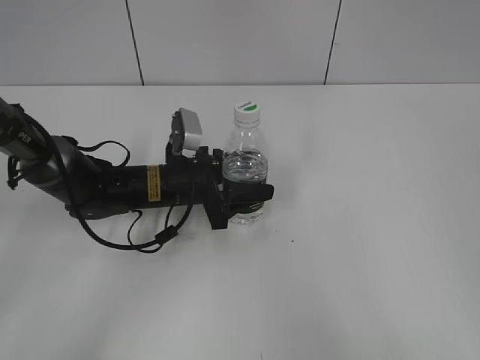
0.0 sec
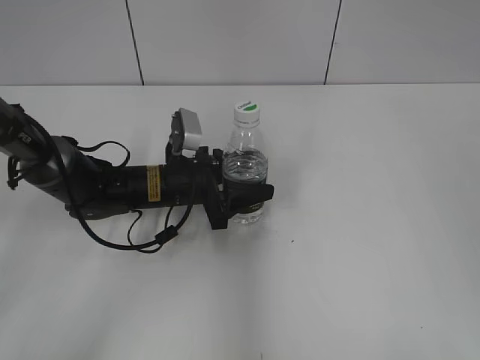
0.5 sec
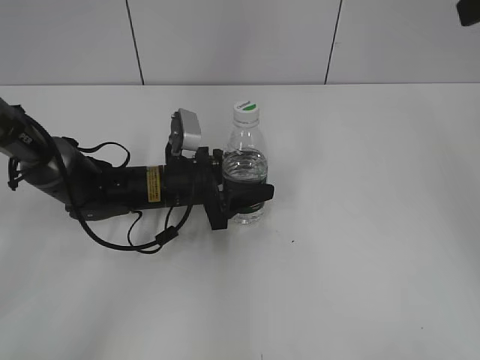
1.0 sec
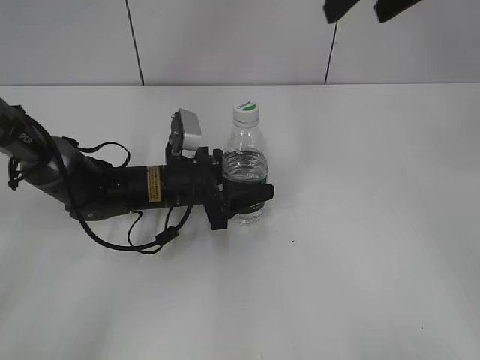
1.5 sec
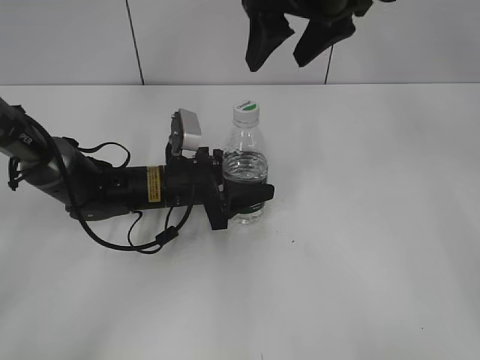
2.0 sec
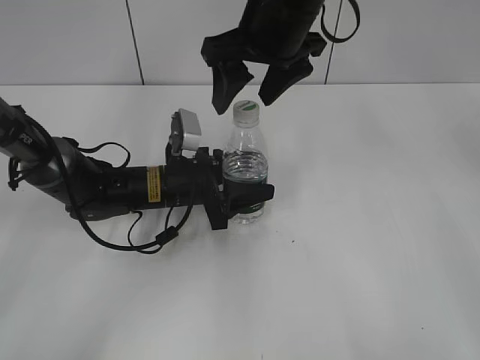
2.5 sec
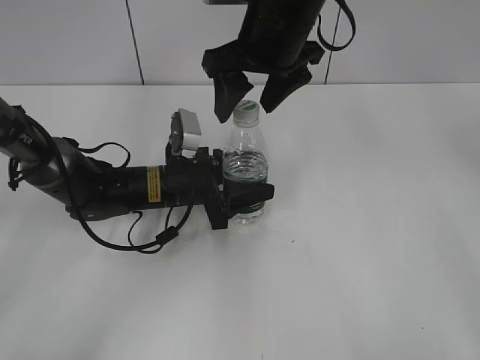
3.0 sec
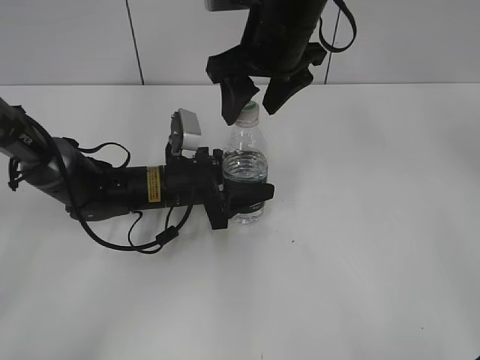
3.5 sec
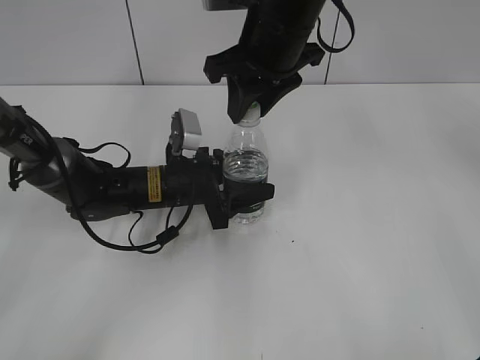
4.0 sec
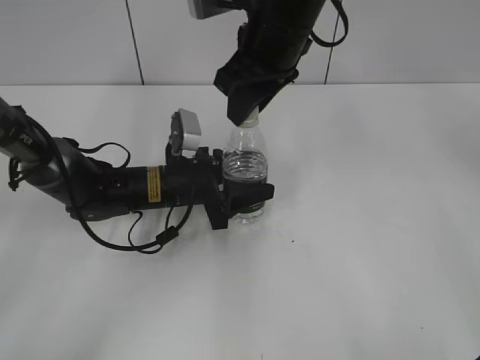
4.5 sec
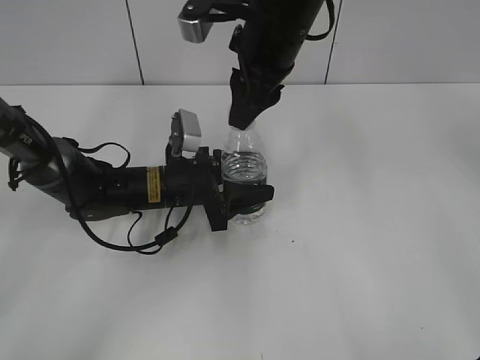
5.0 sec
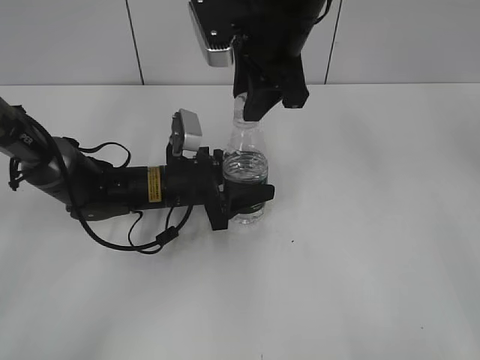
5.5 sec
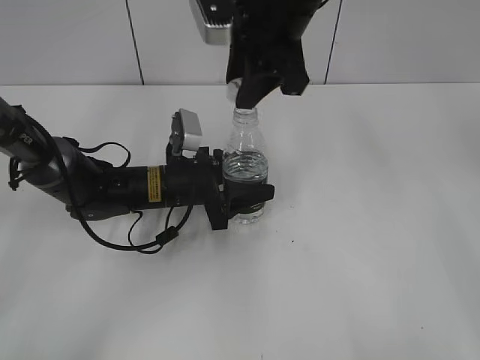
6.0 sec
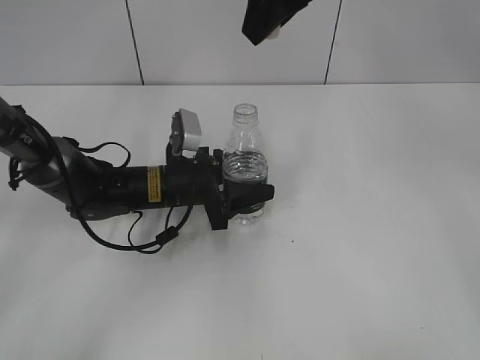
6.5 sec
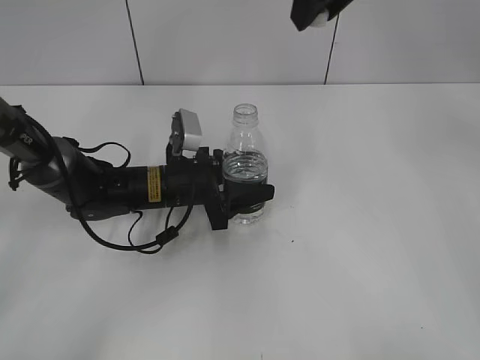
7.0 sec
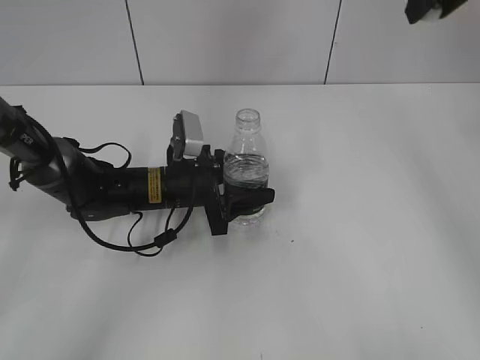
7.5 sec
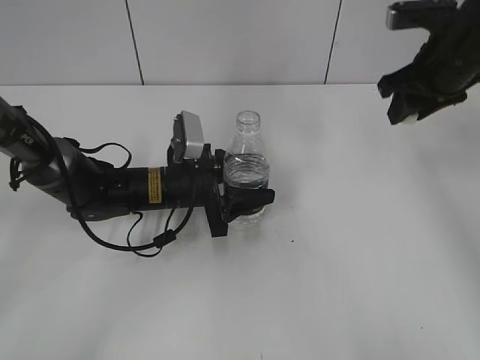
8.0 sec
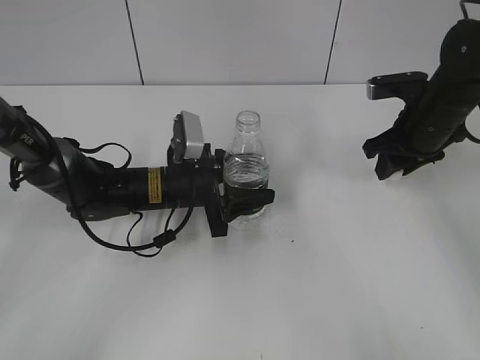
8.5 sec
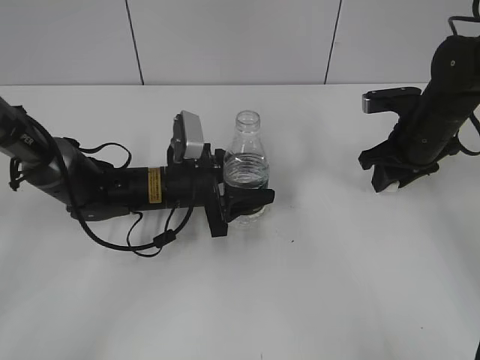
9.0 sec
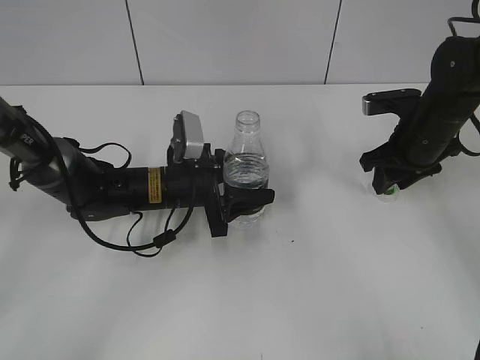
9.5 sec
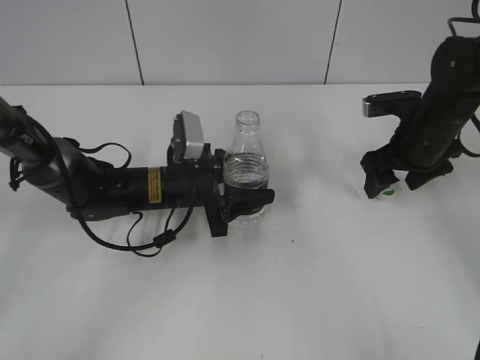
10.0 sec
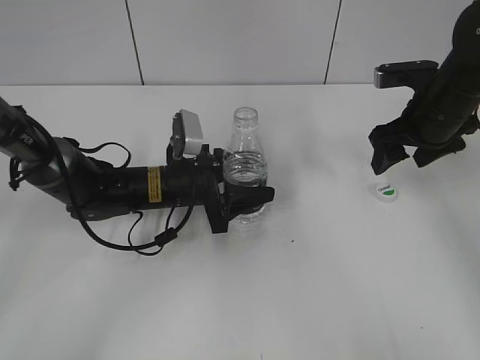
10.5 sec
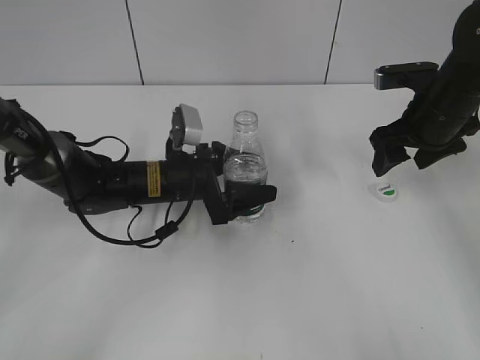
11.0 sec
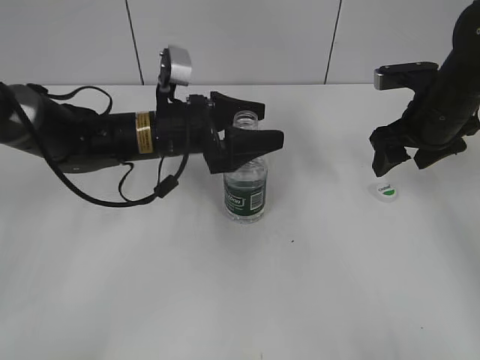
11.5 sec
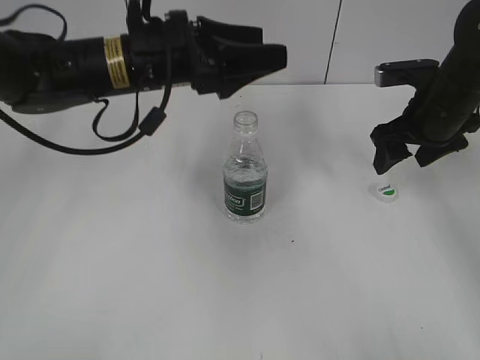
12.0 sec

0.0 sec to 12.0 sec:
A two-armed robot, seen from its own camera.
Step, 0.0 sec to 6.0 sec: Unscrew the bottle cap with the right gripper while holding the bottle with the left gripper.
Step, 6.5 sec to 10.0 sec: Place the bottle cap on the table with the right gripper.
Step, 10.5 sec to 11.0 sec: Place the bottle on the table with the left gripper.
0.0 sec to 2.0 sec: The right gripper heads forward and to the left, covering approximately 40 cm.
2.0 sec to 4.0 sec: The right gripper is displaced downward by approximately 5 cm, and closes up.
6.0 sec to 8.0 sec: The right gripper shifts roughly 20 cm to the right.
8.0 sec to 10.0 sec: The right gripper is displaced downward by about 10 cm, and opens.
10.0 sec to 12.0 sec: The left gripper is displaced upward by about 20 cm, and opens its fingers.

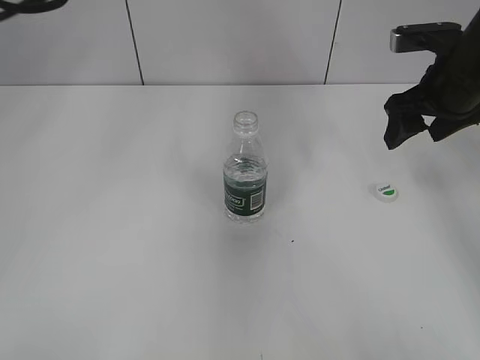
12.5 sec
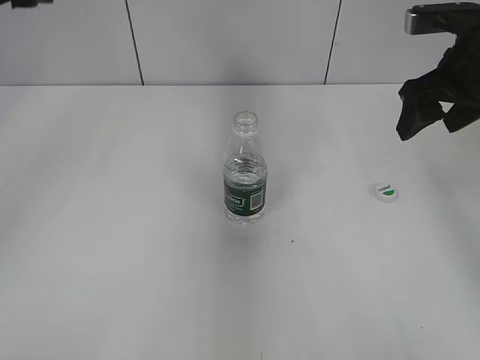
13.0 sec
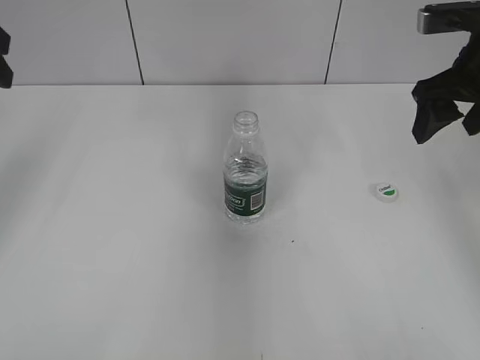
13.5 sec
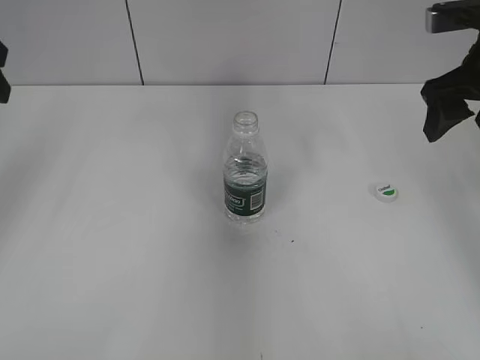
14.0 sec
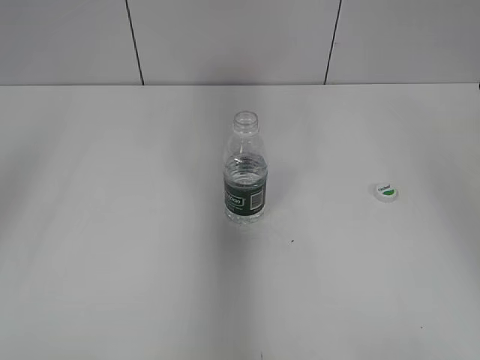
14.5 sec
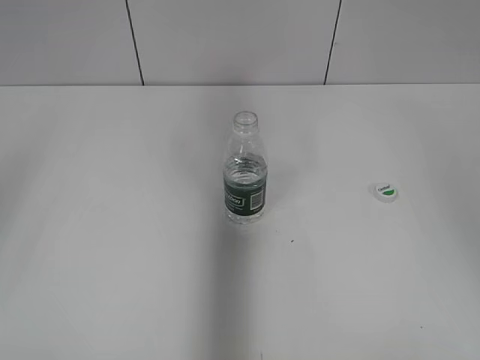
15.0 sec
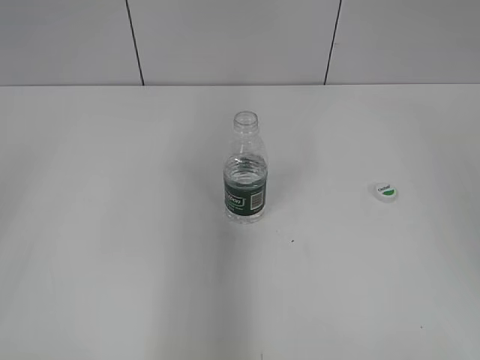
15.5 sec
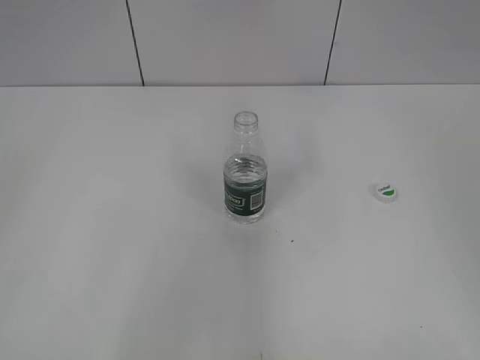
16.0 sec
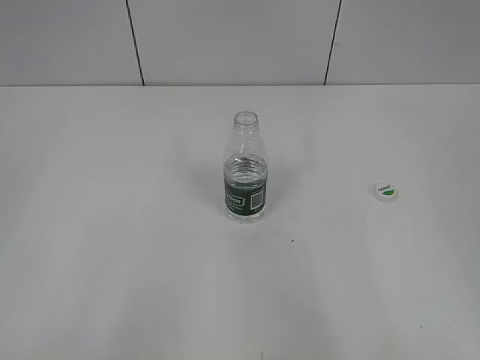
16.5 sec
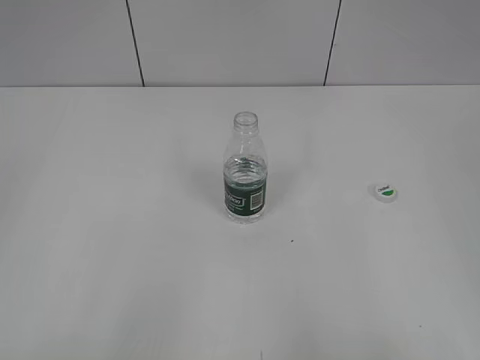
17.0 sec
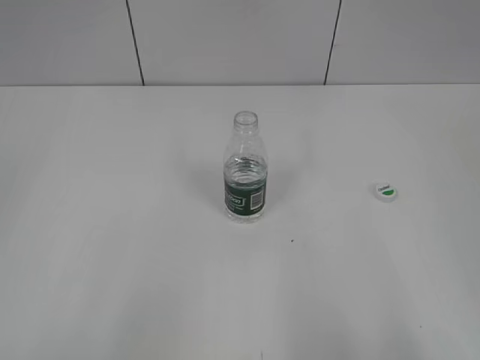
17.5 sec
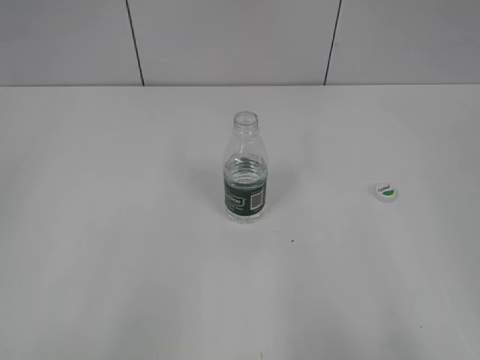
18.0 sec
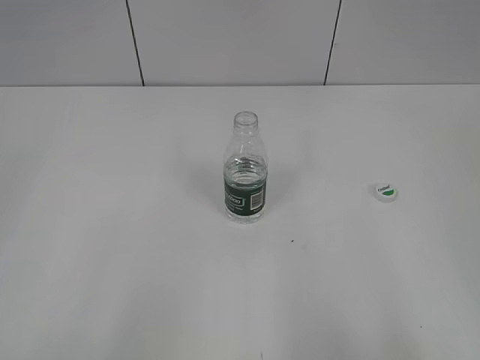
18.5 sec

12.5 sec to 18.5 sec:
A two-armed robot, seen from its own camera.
12.5 sec to 14.5 sec: The left gripper travels to the left and backward by approximately 15 cm. The right gripper travels upward and backward by approximately 15 cm.
14.5 sec to 16.5 sec: Both grippers move backward, approximately 25 cm.

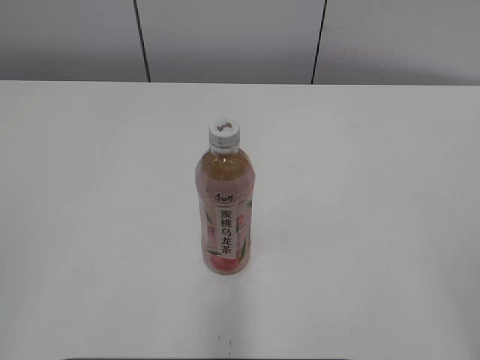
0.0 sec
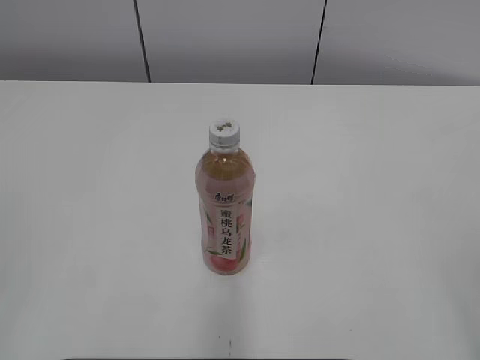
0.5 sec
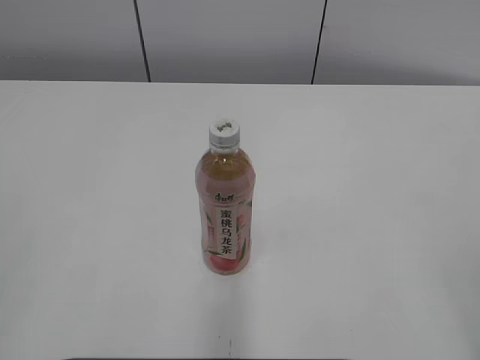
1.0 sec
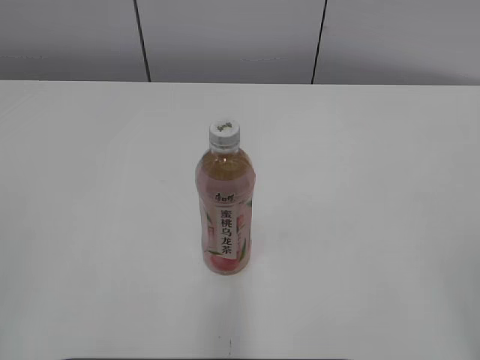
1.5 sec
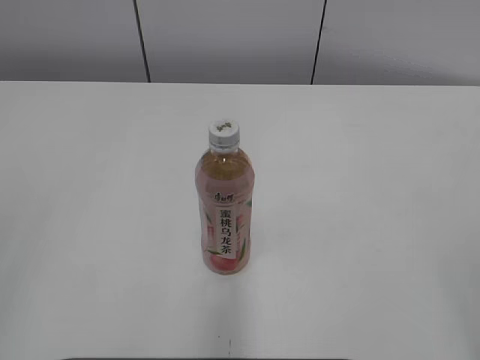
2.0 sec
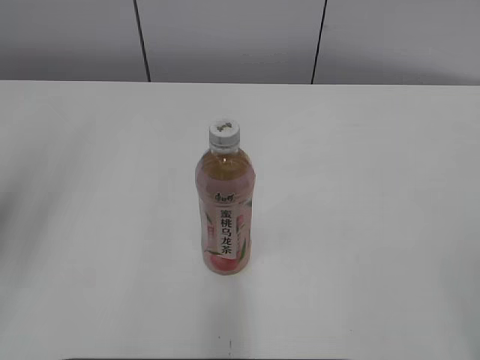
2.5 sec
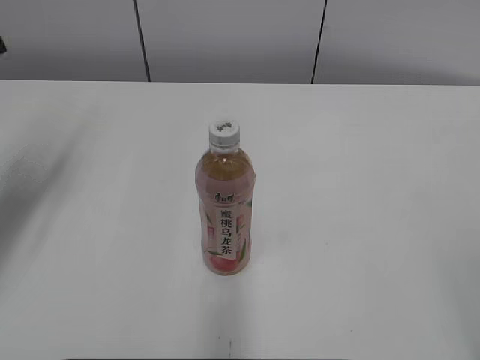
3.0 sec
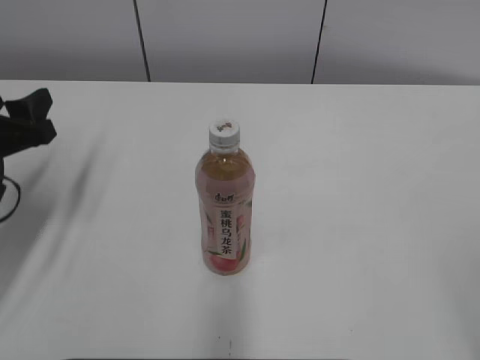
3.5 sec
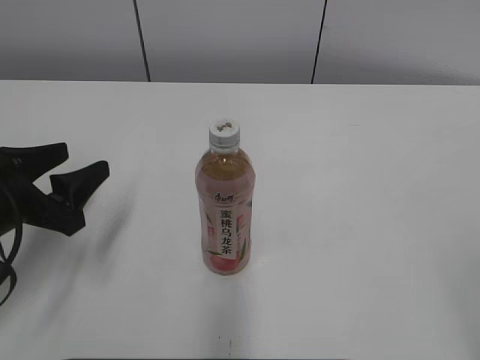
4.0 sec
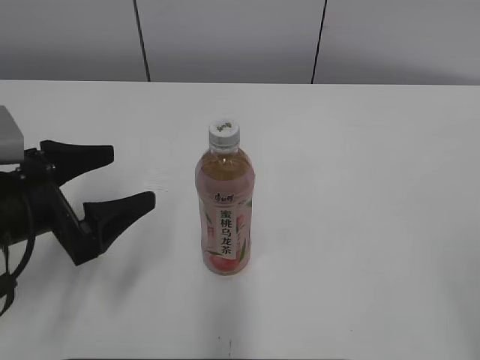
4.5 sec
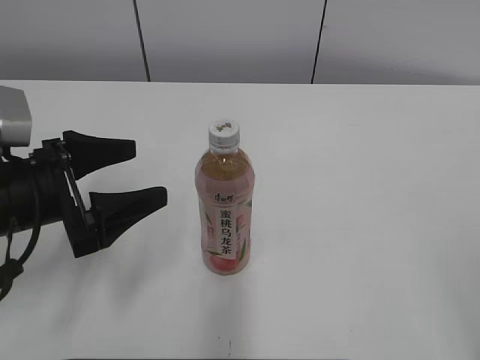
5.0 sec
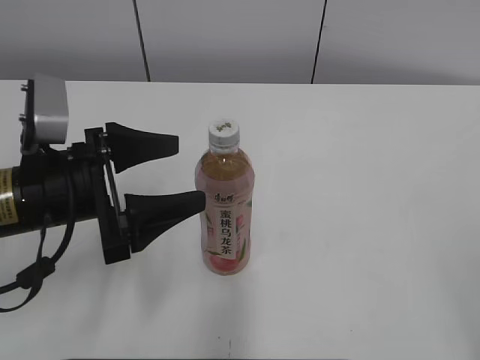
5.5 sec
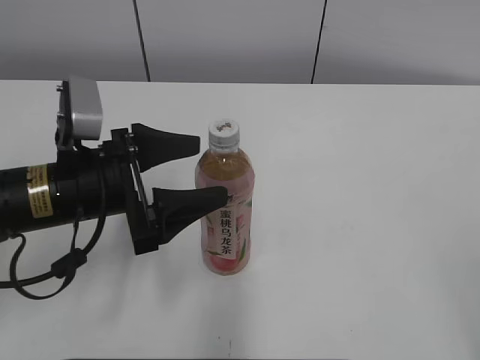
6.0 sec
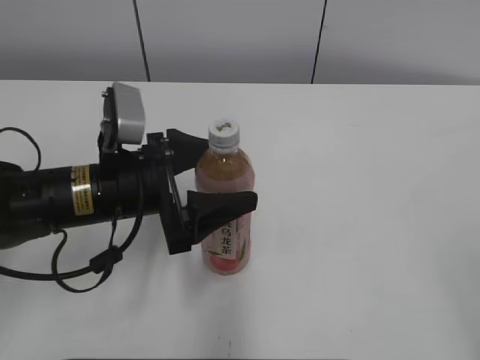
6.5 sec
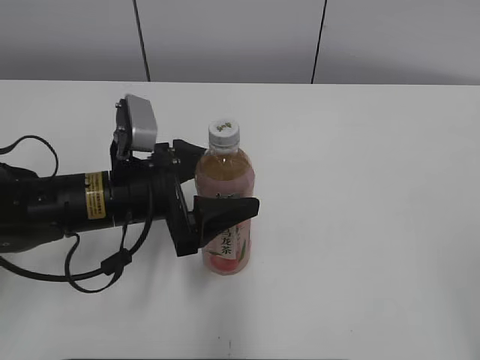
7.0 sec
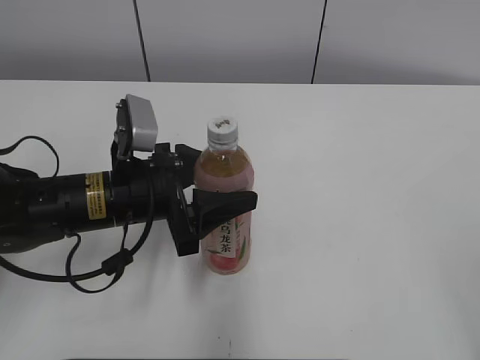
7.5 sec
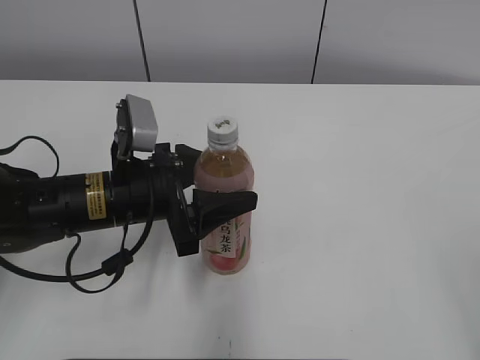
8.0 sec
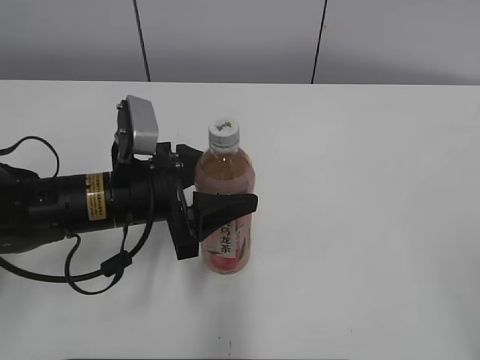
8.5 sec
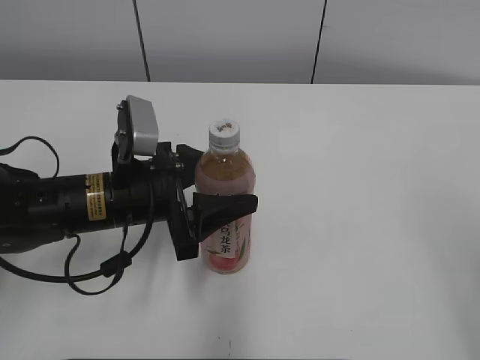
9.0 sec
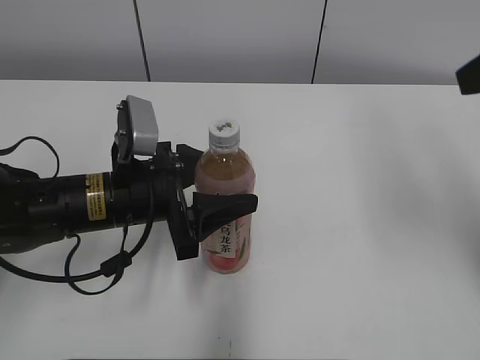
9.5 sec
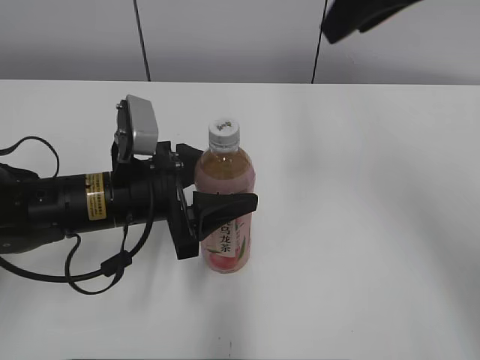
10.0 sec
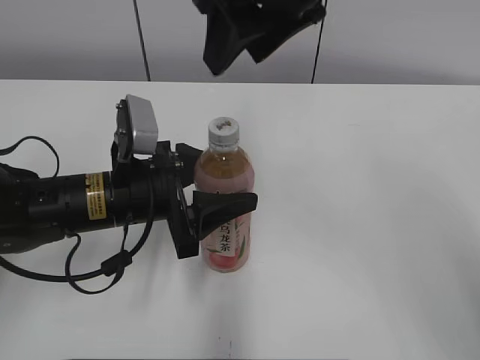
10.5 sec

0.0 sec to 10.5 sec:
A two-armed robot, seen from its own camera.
Step, 0.0 sec to 7.5 sec: Grab the Peach Oolong Tea with the left hand.
2.0 sec to 4.0 sec: The left gripper is displaced forward and downward by roughly 30 cm, and opens up.
4.0 sec to 6.5 sec: The left gripper heads to the right, covering approximately 10 cm.
6.5 sec to 8.5 sec: The left gripper closes up.
8.5 sec to 10.5 sec: The right gripper shifts some 40 cm forward and to the left.
